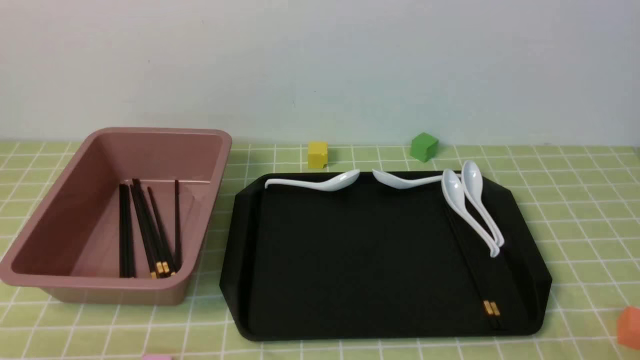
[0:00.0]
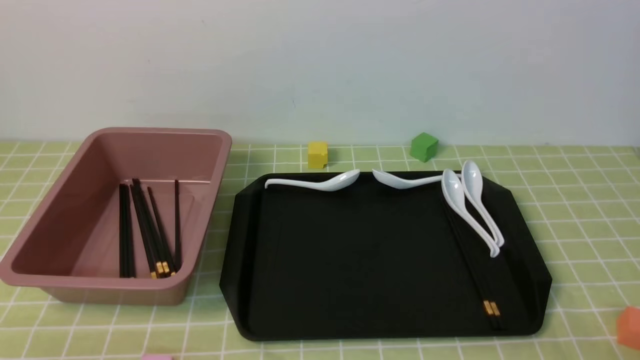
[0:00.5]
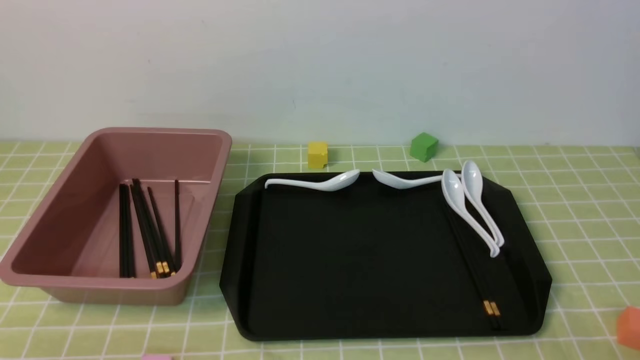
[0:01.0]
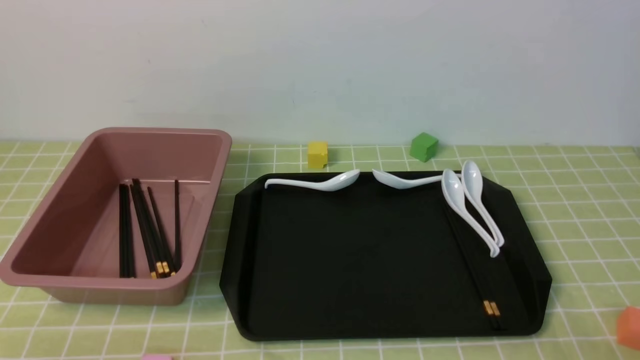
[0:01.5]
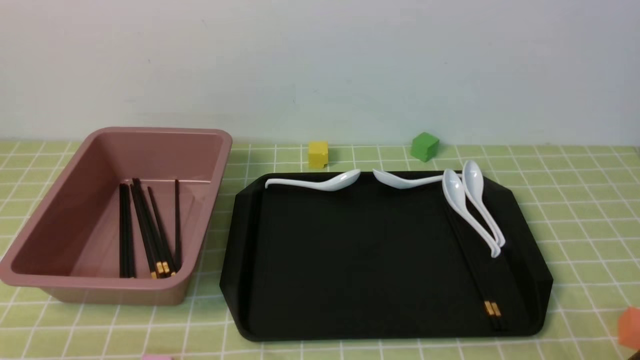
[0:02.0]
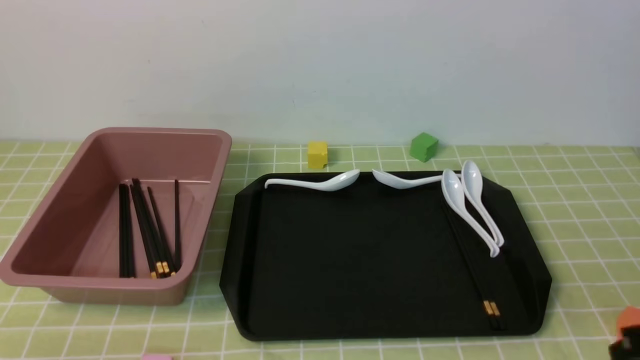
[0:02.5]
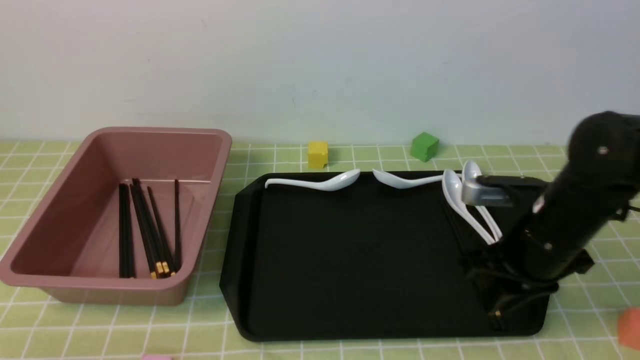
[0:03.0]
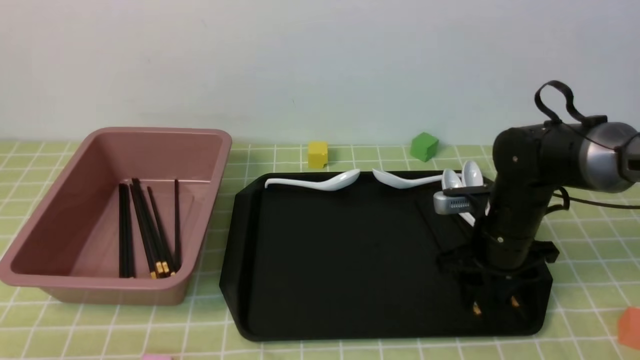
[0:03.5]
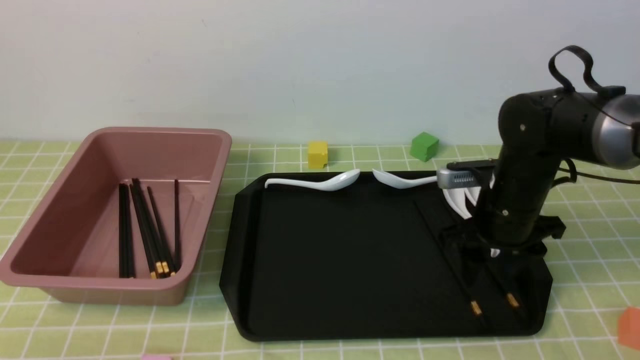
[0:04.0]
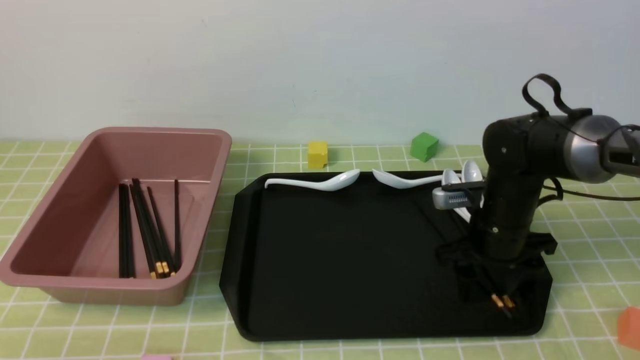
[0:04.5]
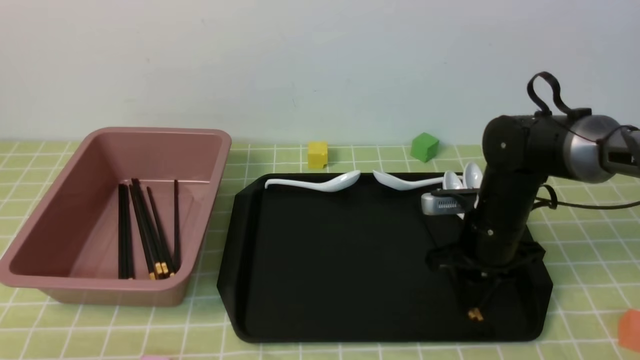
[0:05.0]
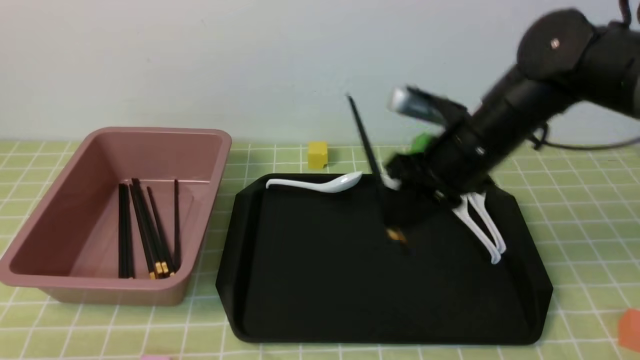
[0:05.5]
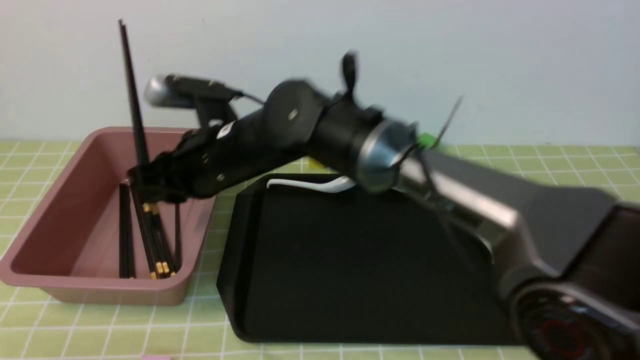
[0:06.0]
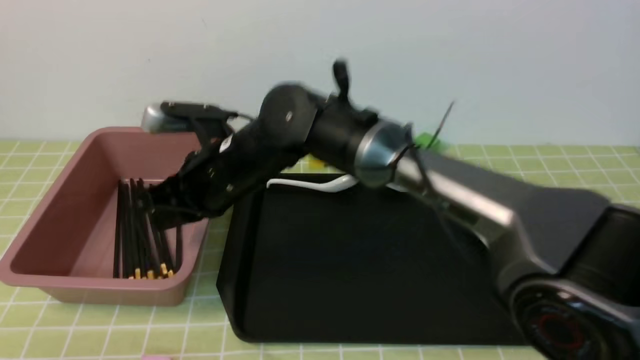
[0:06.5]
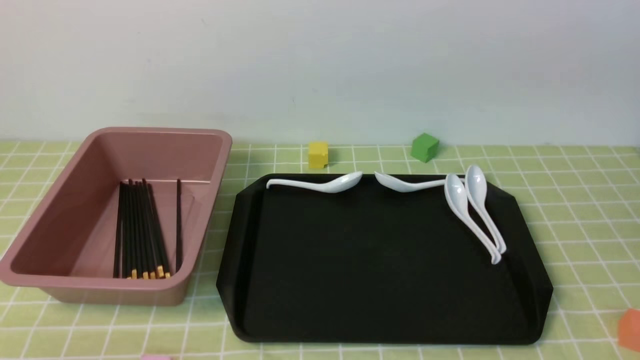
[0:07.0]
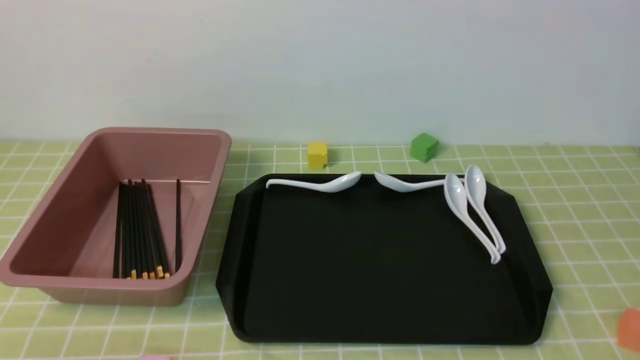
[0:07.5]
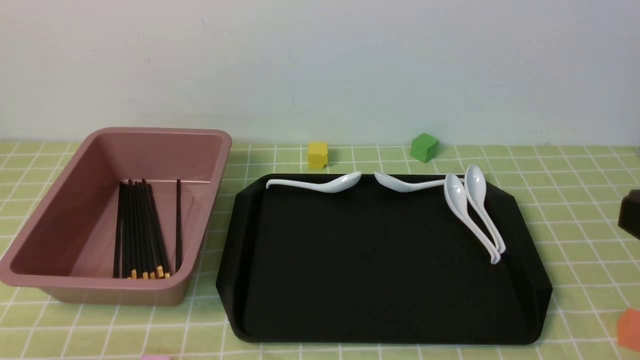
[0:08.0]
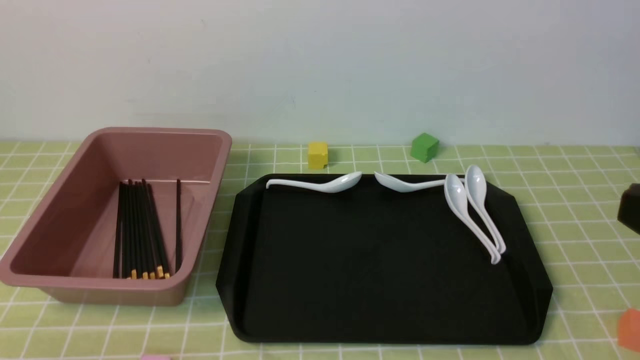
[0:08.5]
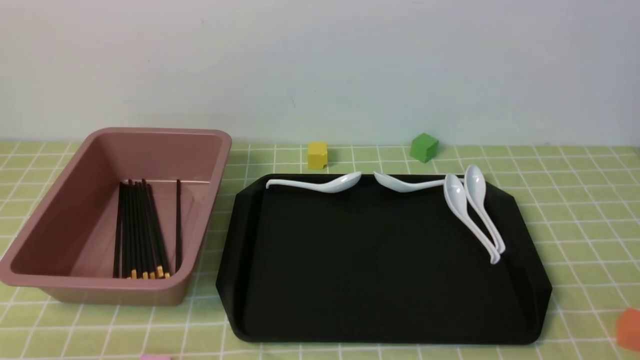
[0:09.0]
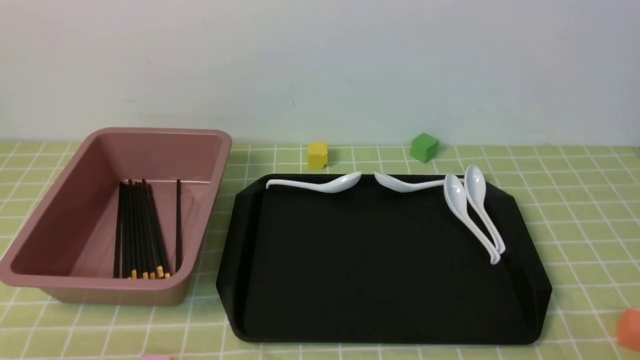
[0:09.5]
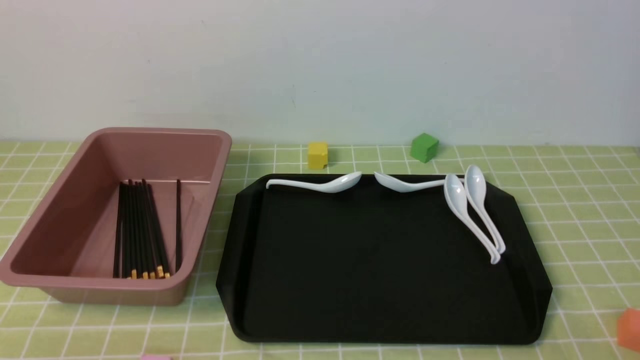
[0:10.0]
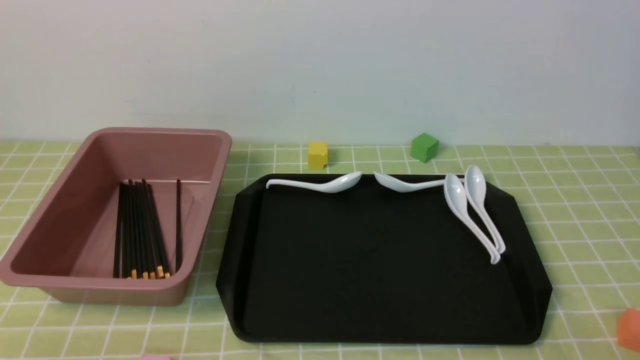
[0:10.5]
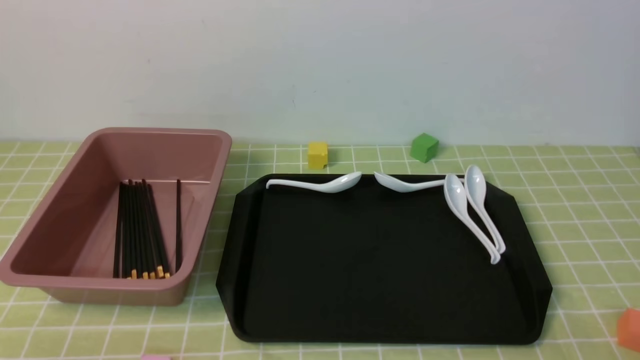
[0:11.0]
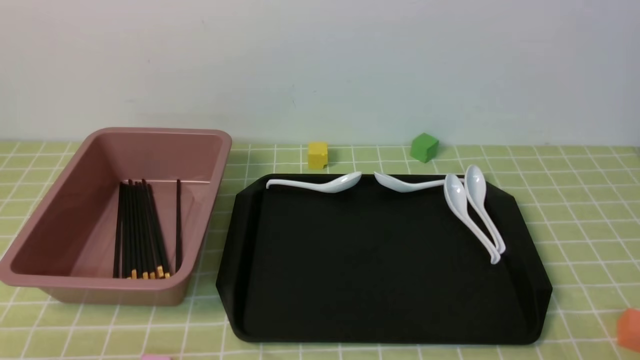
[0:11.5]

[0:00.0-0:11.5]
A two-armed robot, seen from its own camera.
Step, 0:00.0 to 0:05.0: use the right arm to grab a pair of chopsticks.
Step, 0:05.5 to 0:06.5: use the right arm to put the chopsticks into the lunch box.
0:02.0 to 0:04.0: The right gripper shifts some 30 cm forward, and opens.
0:04.0 to 0:06.0: The right gripper heads to the left, covering roughly 30 cm, and closes up.
0:06.0 to 0:07.5: The right gripper heads to the right, backward and upward, covering roughly 50 cm.
0:09.5 to 0:11.5: Both grippers stay about where they are.
